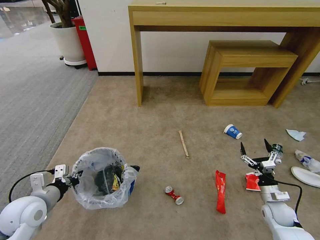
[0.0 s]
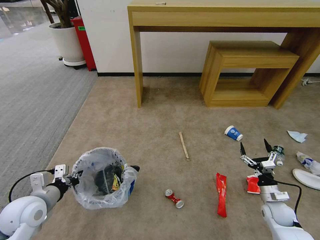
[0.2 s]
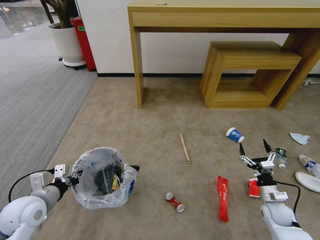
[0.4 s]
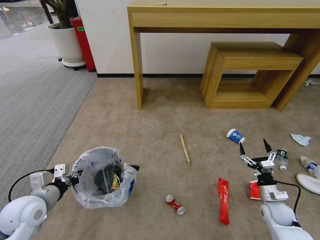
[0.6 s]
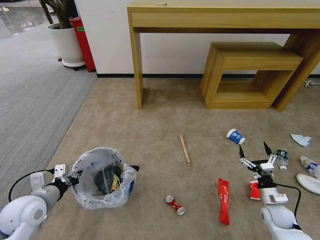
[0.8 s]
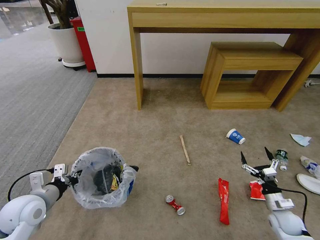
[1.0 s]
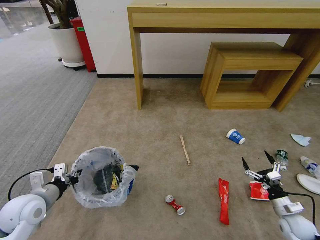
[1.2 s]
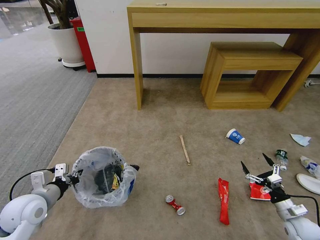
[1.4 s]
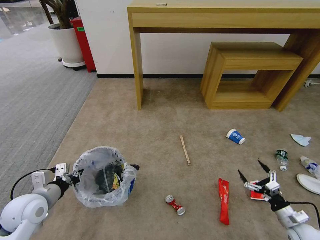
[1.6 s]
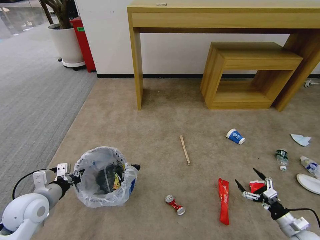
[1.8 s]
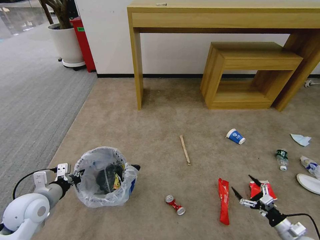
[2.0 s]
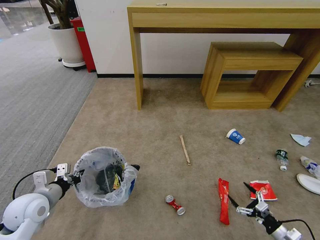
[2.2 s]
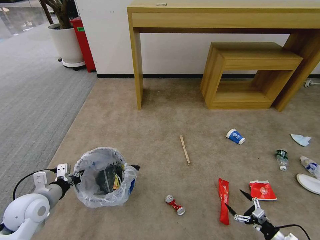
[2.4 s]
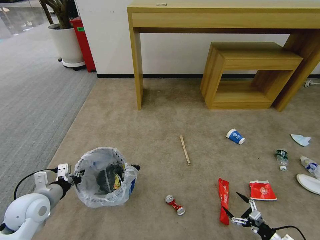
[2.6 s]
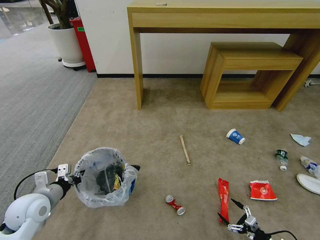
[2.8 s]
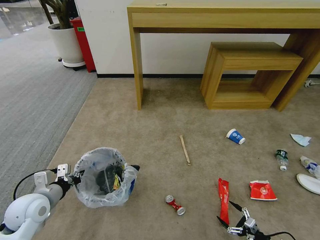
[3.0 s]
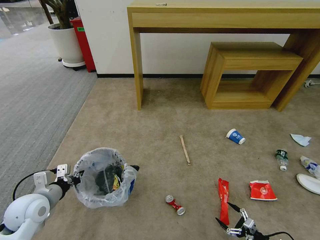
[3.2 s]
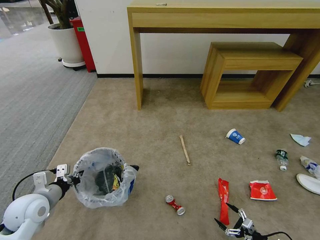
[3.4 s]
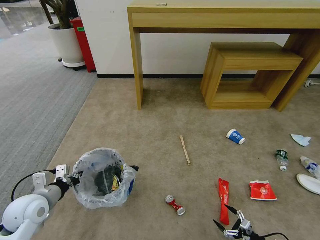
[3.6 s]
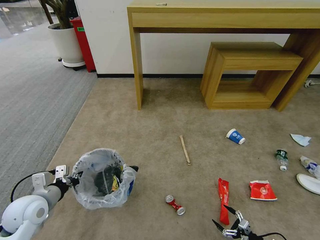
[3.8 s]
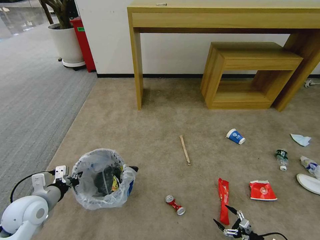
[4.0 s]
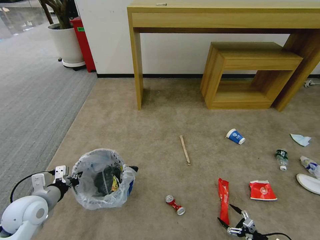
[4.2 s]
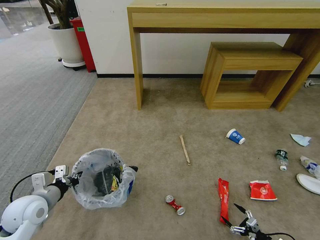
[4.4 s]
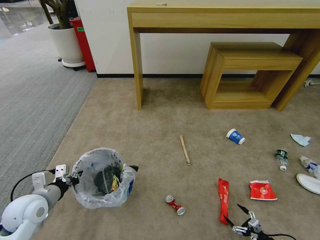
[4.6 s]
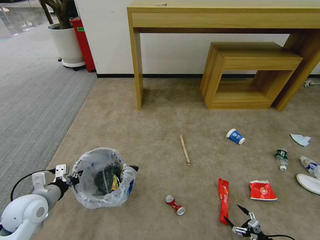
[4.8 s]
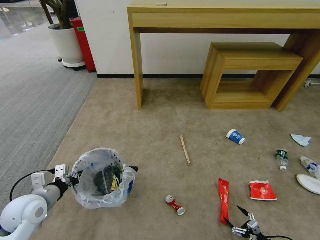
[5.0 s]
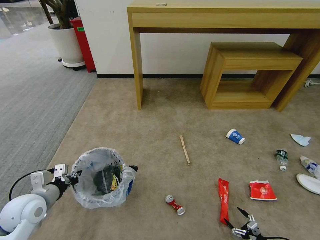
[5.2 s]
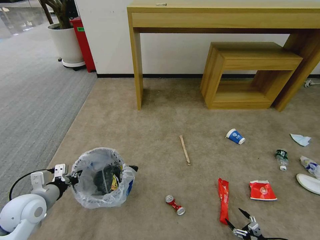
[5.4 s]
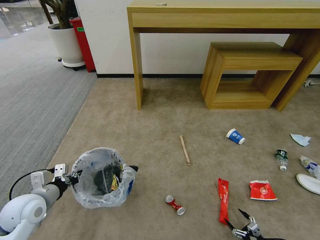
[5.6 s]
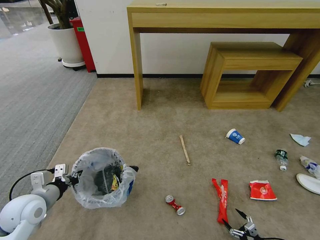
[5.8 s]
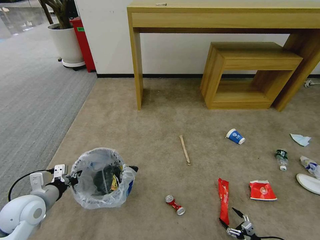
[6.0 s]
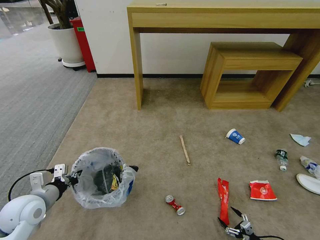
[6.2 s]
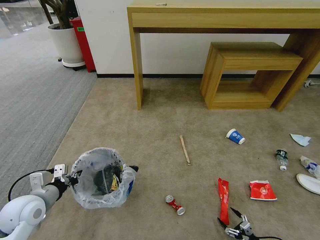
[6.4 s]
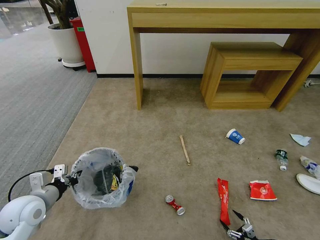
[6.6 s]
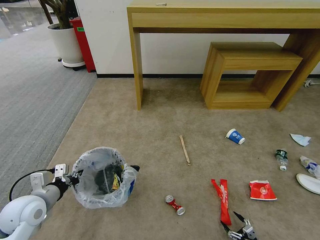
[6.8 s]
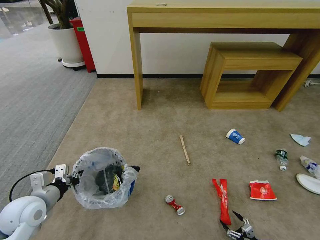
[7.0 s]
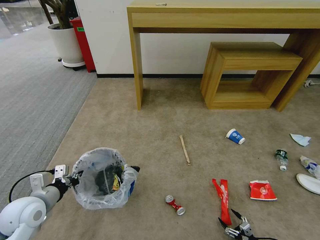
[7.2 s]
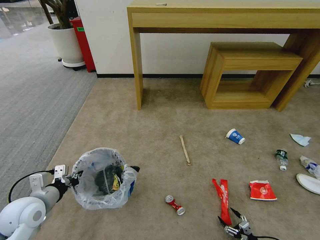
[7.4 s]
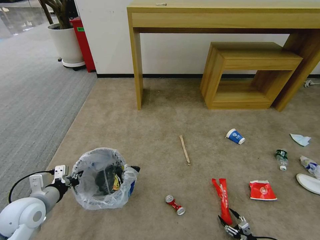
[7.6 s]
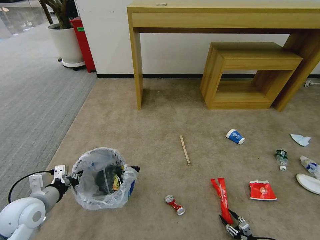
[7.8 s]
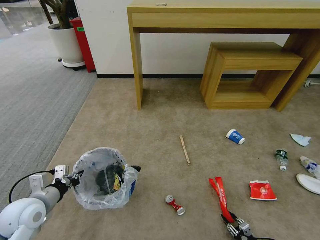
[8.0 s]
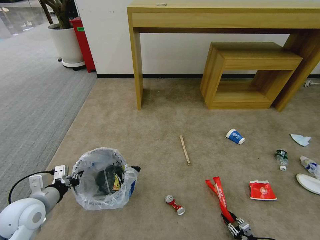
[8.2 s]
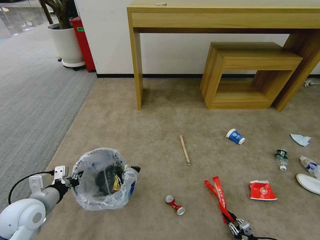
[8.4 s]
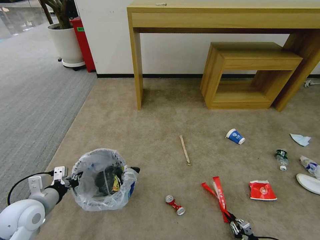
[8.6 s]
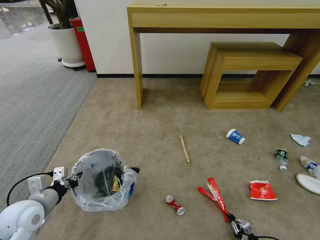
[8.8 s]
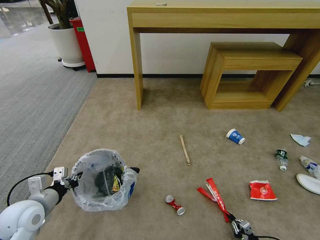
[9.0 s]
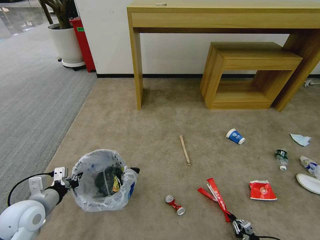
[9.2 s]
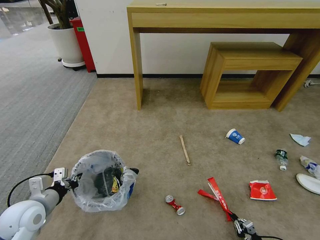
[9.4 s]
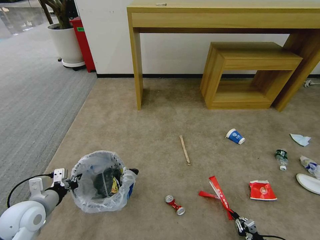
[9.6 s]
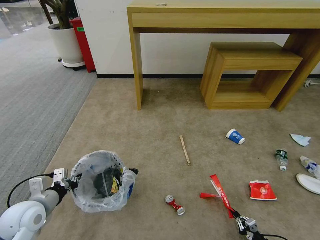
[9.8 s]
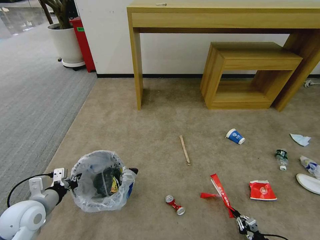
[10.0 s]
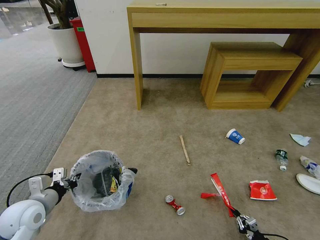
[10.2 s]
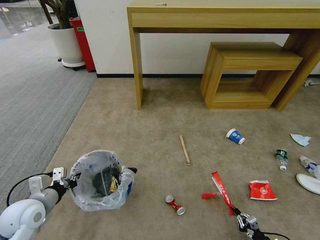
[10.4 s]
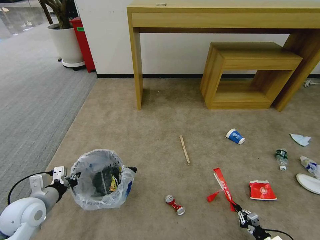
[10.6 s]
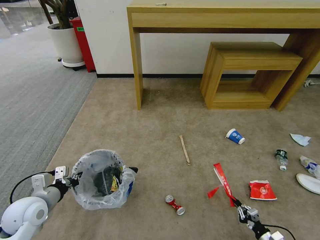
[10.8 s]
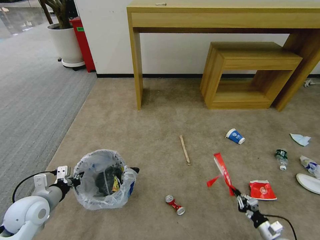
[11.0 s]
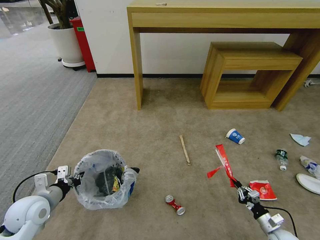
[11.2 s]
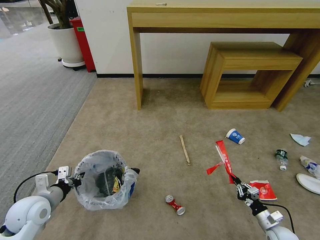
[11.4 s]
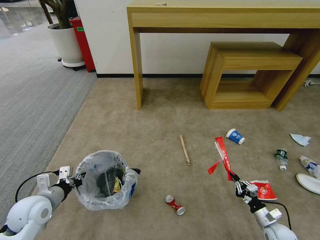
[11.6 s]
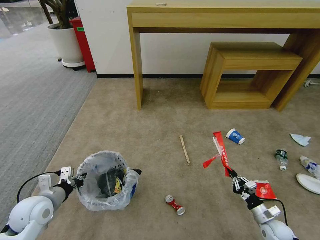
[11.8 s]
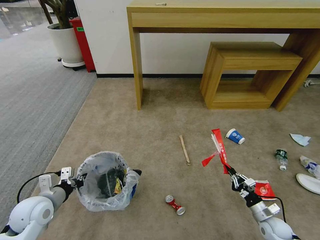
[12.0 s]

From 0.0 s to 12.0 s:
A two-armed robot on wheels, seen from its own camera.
Task of the whole recording: Pick up the trash bin and place the garbage on the floor into it.
From 0.0 s to 1.6 s: The right gripper travels backward and to the right by roughly 10 cm.
From 1.6 s to 3.0 s: The right gripper travels downward and backward by roughly 10 cm.
From 3.0 s to 4.4 s: There are only small adjustments of the grippers.
From 4.4 s to 7.6 s: There are only small adjustments of the grippers.
From 7.6 s to 9.0 s: The right gripper closes up.
From 9.0 s to 10.4 s: The grippers make only small movements.
From 10.4 s to 12.0 s: The right gripper shifts approximately 15 cm forward and upward.

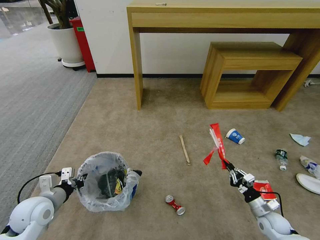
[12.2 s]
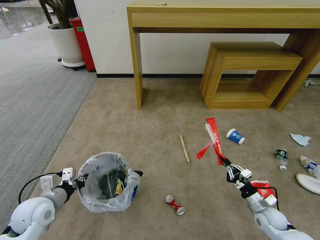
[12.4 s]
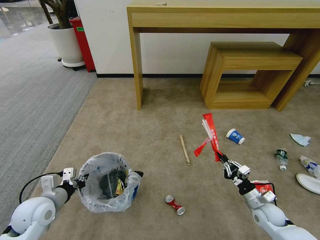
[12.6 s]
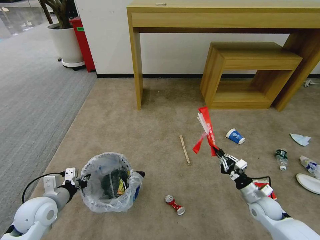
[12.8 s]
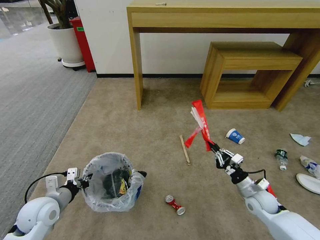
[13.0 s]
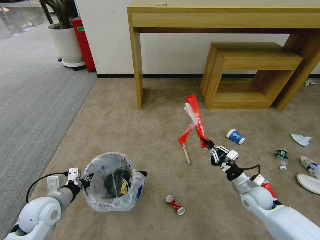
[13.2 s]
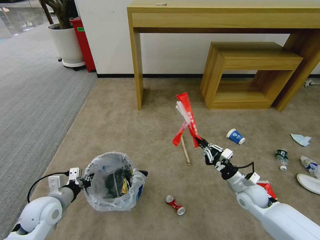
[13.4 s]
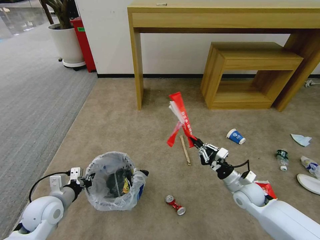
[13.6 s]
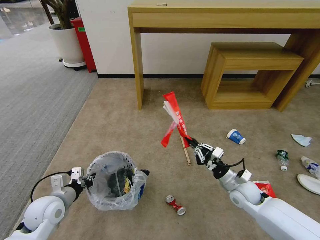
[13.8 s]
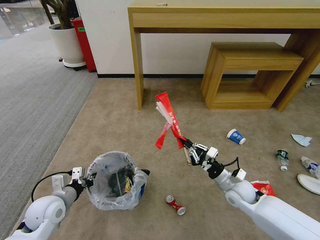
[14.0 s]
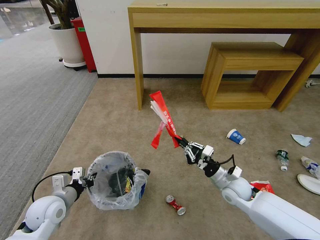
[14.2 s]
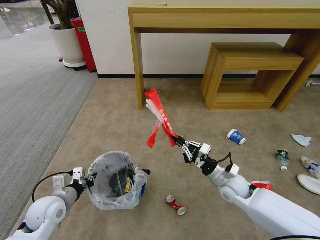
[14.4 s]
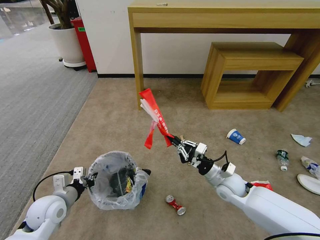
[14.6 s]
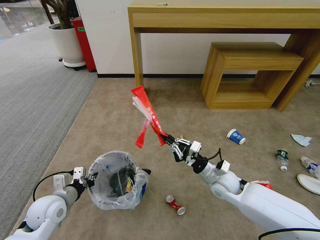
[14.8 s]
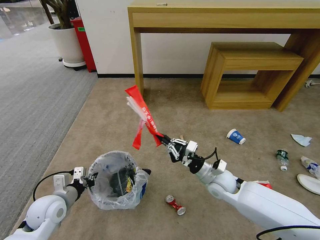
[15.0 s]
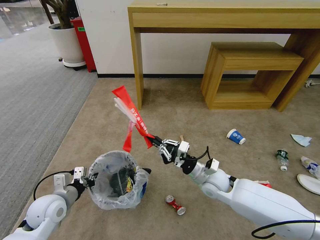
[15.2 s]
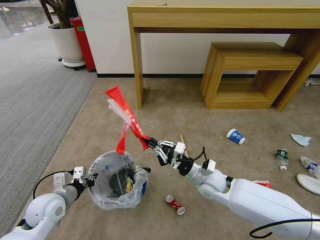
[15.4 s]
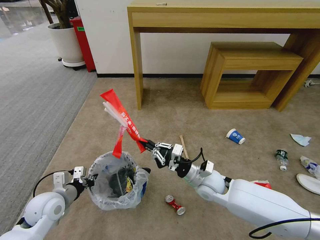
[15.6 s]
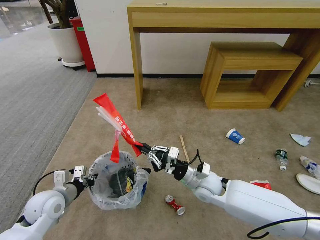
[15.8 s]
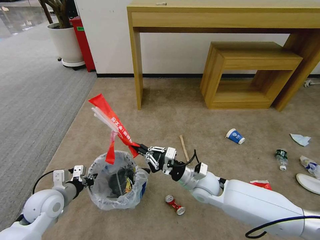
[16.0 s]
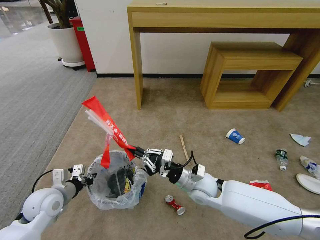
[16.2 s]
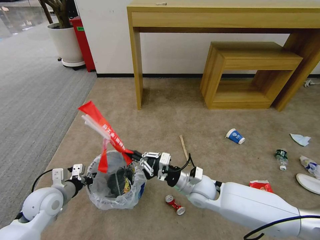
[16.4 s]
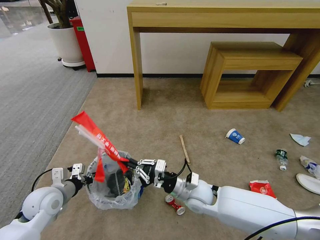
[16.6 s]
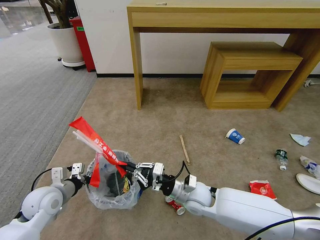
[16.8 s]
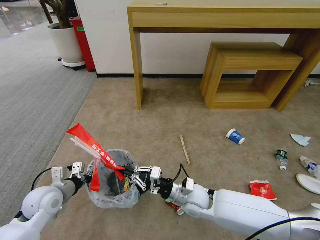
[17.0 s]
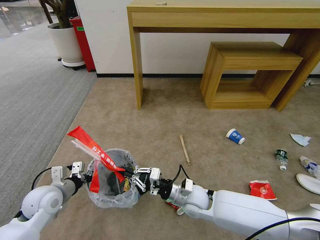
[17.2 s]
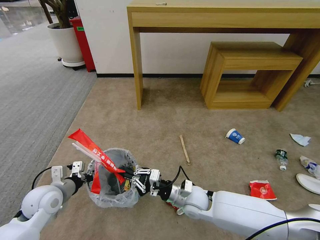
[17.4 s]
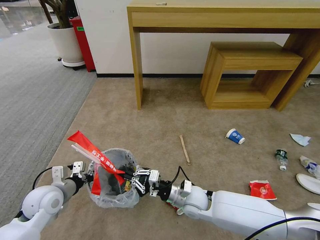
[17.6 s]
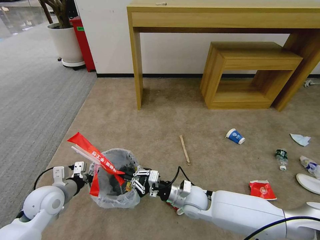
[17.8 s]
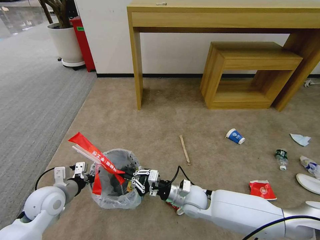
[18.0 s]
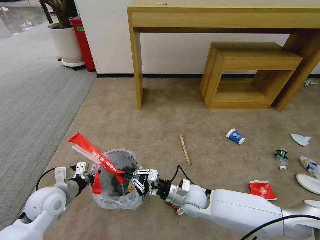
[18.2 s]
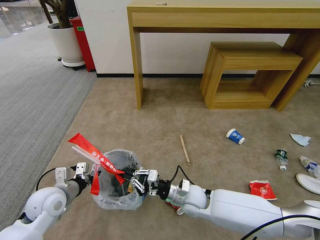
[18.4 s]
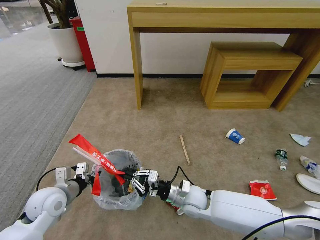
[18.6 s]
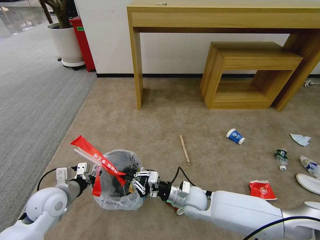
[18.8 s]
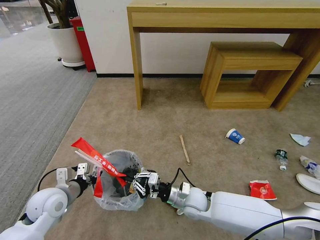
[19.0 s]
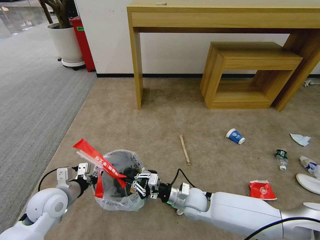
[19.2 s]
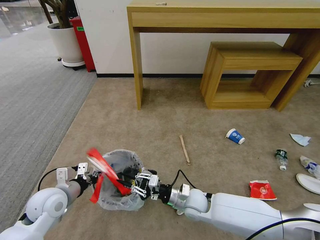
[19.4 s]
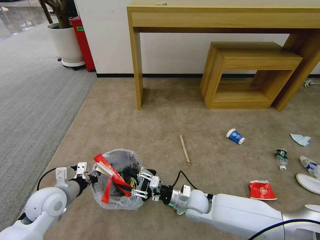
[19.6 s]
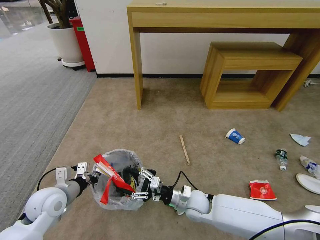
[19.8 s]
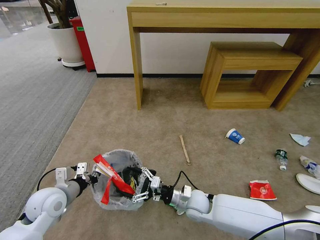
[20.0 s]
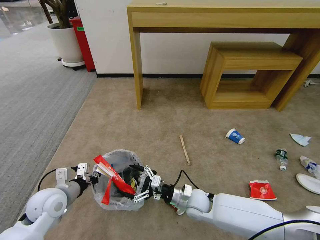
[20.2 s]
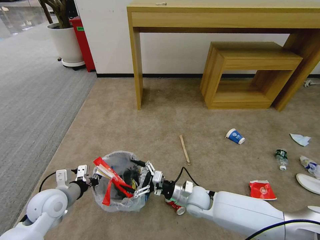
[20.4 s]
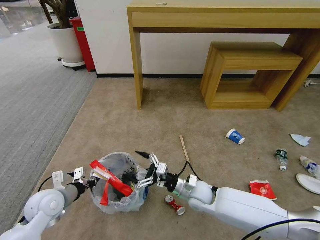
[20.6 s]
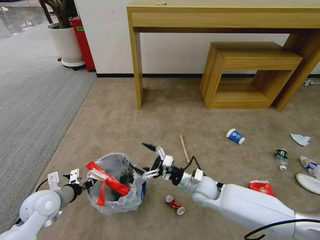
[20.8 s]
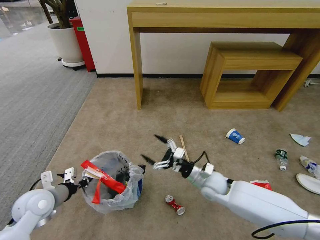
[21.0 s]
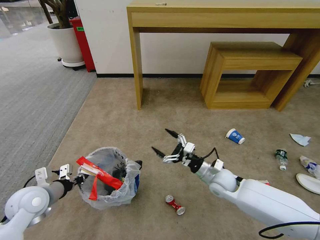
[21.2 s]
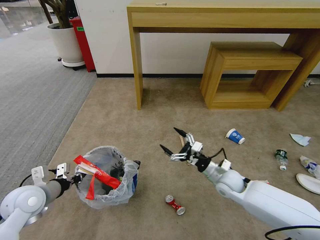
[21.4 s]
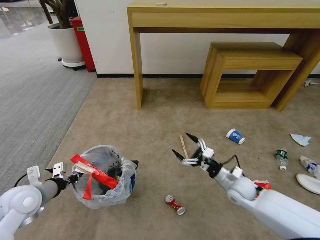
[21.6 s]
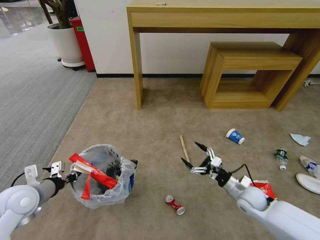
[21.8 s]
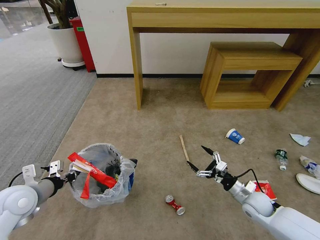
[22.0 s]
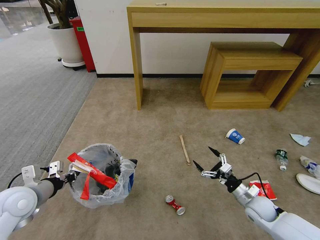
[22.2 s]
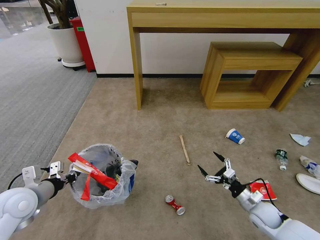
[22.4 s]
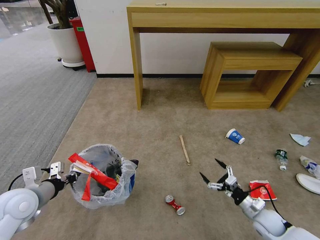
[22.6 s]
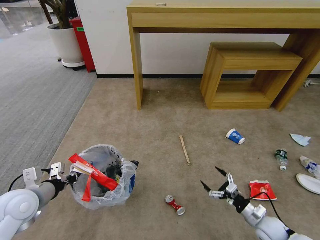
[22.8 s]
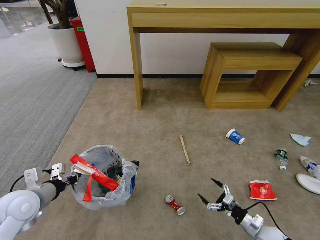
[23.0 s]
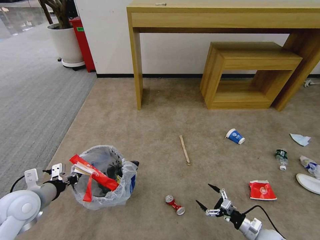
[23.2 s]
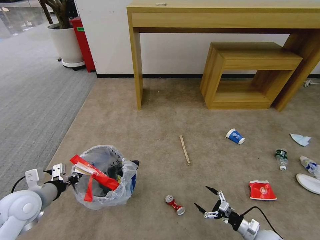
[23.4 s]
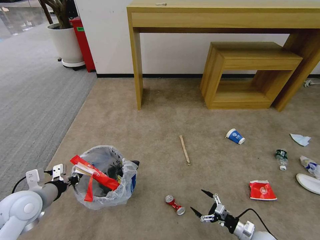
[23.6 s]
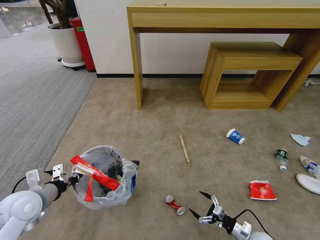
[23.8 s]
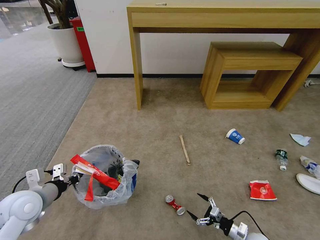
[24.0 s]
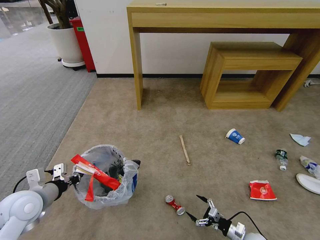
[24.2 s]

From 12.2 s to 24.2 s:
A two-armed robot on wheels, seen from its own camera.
Task of the whole recording: Pick up the trash bin and place the garbage on the floor into it.
From 12.2 s to 13.8 s: The right gripper travels to the left, upward and forward by about 20 cm.
From 13.8 s to 15.2 s: The right gripper goes approximately 10 cm to the left.
From 15.2 s to 16.6 s: The right gripper is displaced to the left by approximately 5 cm.
From 16.6 s to 18.2 s: There are only small adjustments of the grippers.
From 18.2 s to 19.8 s: The right gripper opens.
From 19.8 s to 21.2 s: The right gripper is displaced to the right, forward and upward by about 10 cm.
From 21.2 s to 22.6 s: The right gripper goes approximately 25 cm to the right, backward and downward.
From 22.6 s to 24.2 s: The right gripper goes approximately 15 cm downward and backward.
